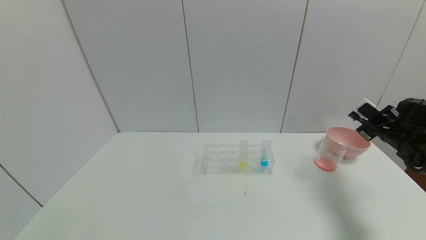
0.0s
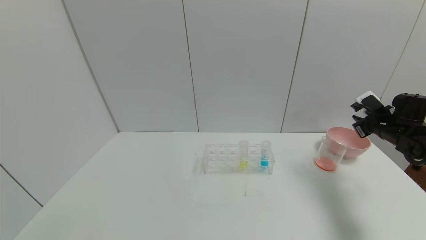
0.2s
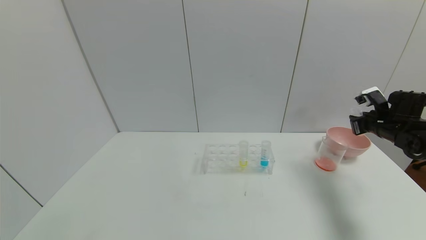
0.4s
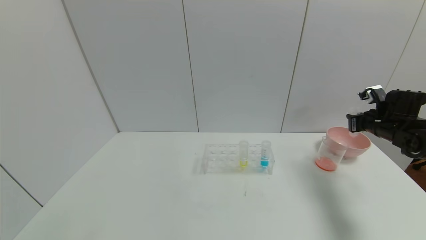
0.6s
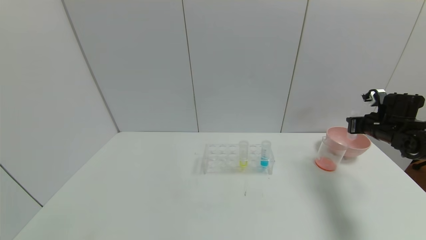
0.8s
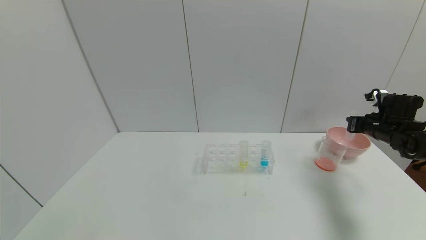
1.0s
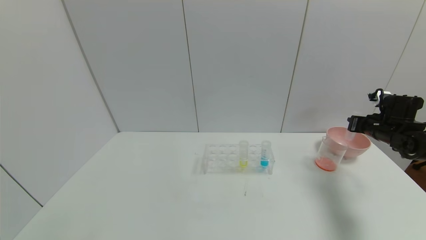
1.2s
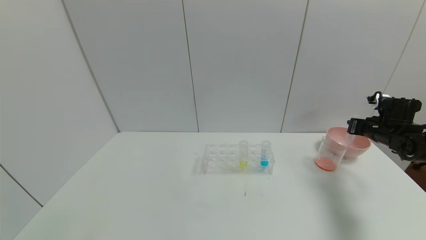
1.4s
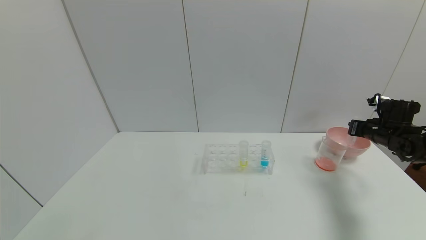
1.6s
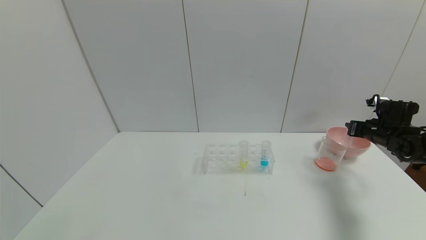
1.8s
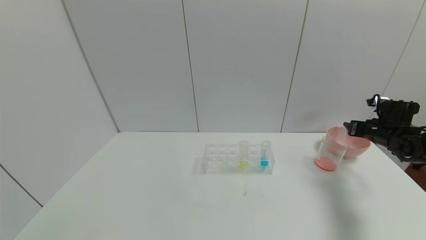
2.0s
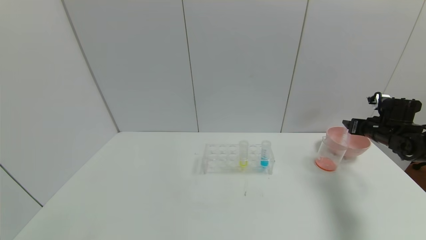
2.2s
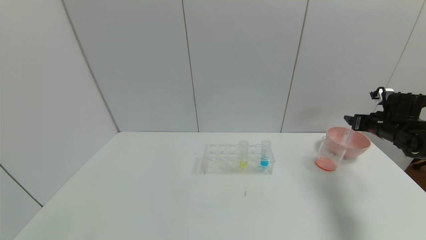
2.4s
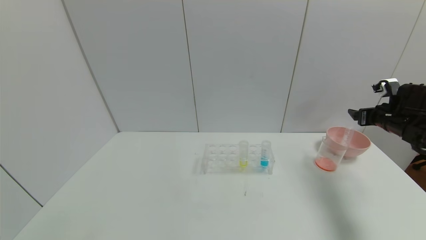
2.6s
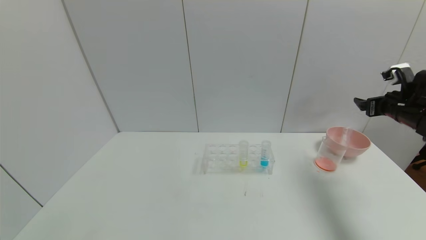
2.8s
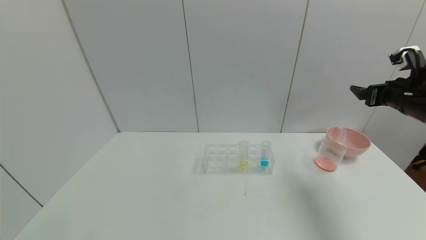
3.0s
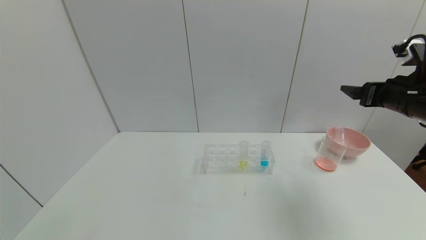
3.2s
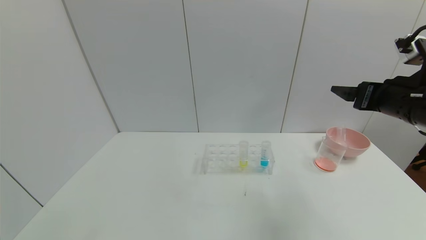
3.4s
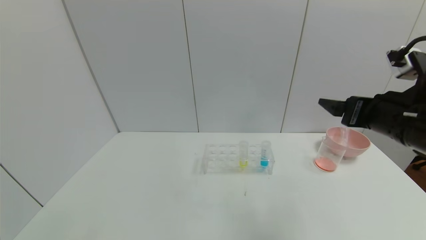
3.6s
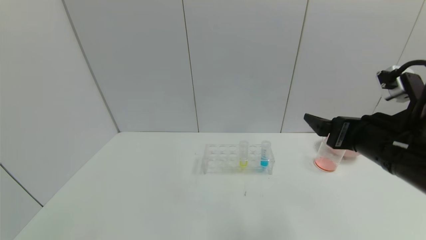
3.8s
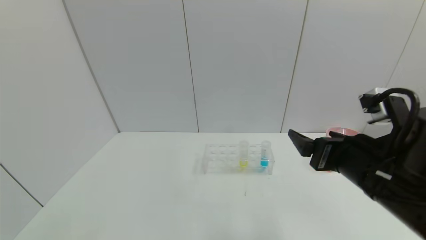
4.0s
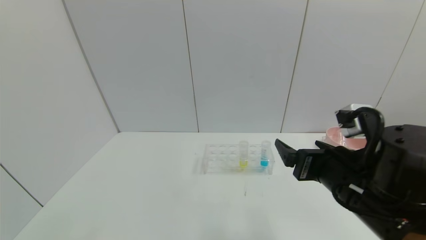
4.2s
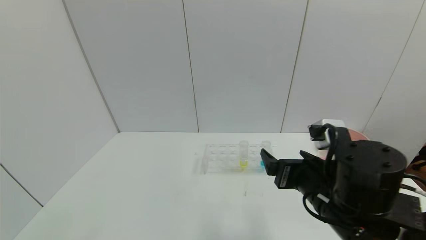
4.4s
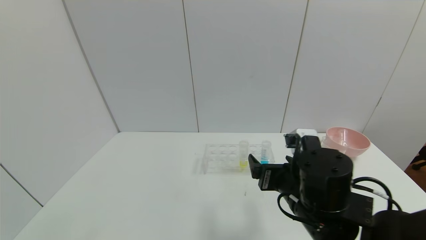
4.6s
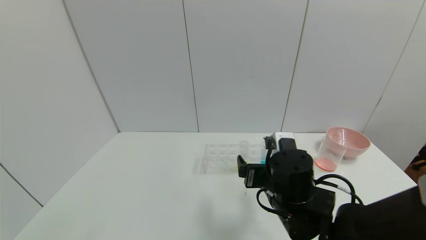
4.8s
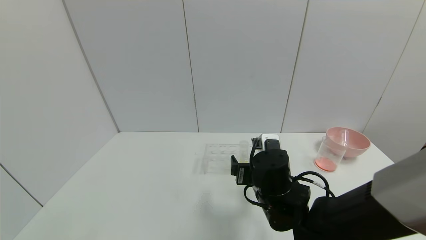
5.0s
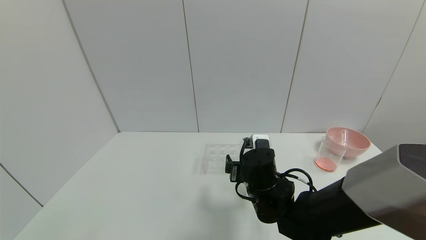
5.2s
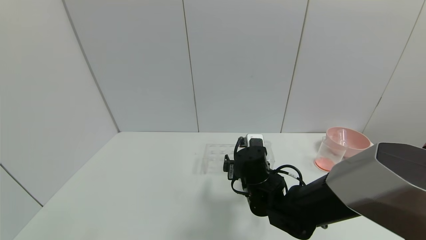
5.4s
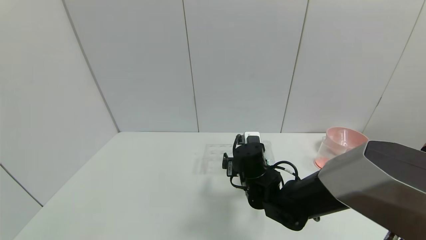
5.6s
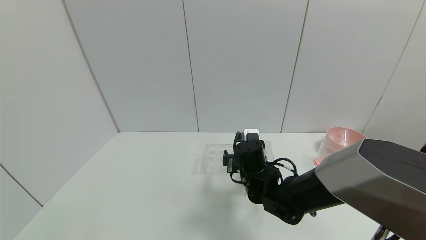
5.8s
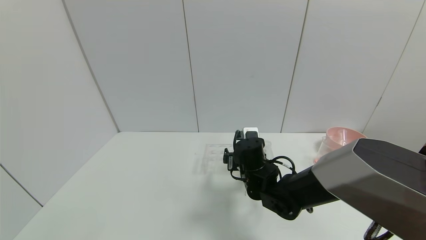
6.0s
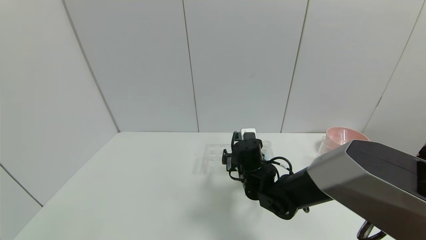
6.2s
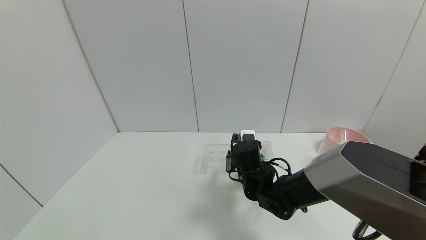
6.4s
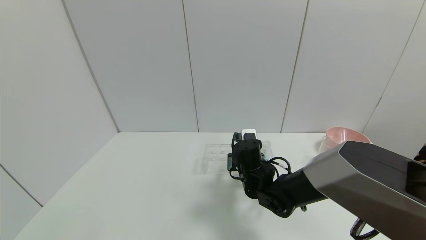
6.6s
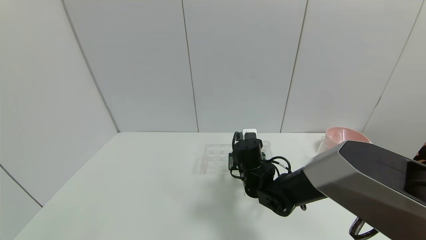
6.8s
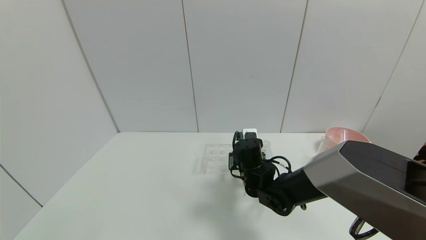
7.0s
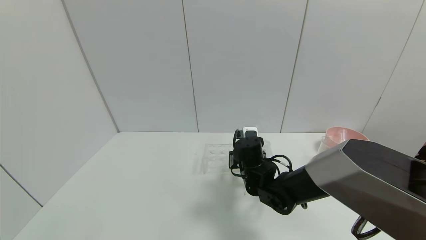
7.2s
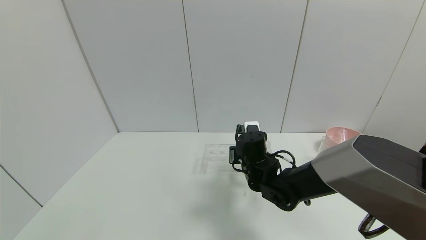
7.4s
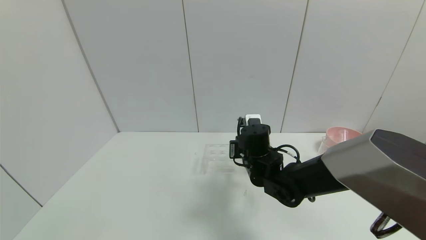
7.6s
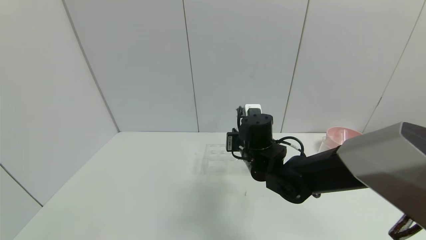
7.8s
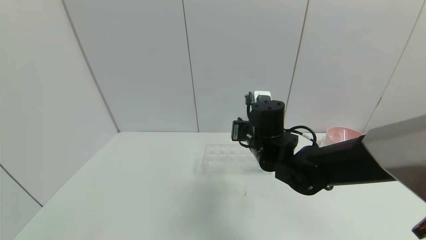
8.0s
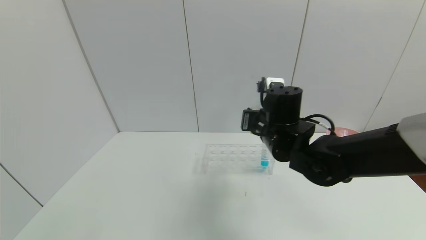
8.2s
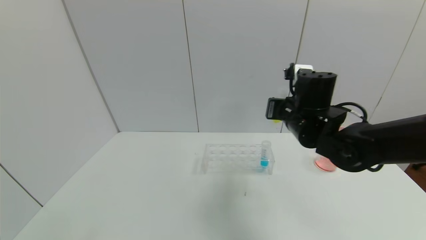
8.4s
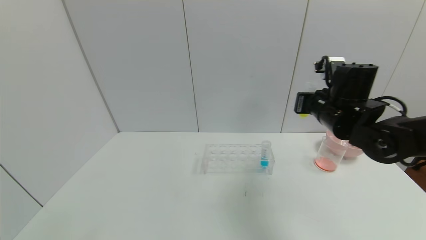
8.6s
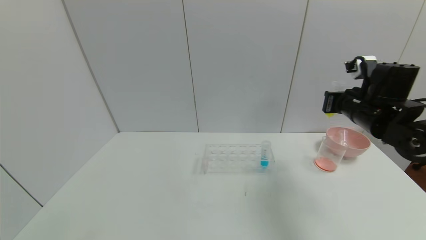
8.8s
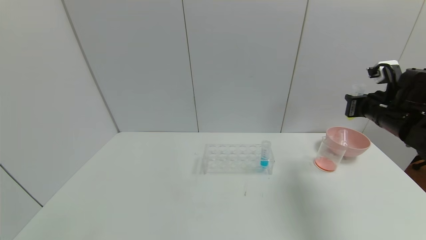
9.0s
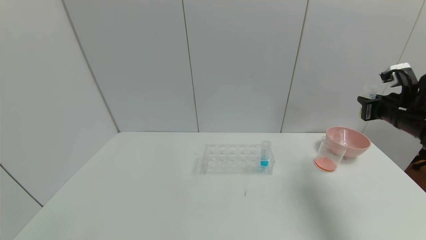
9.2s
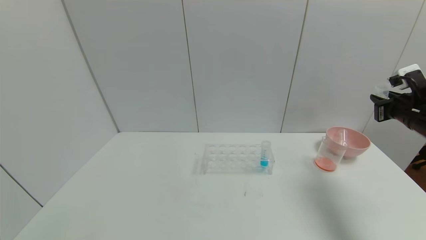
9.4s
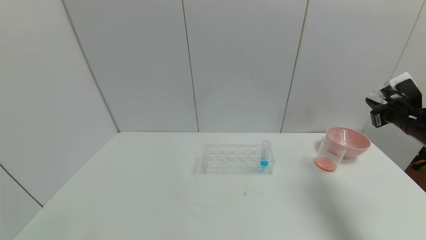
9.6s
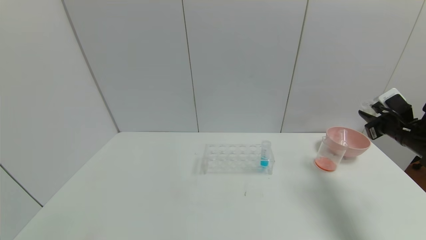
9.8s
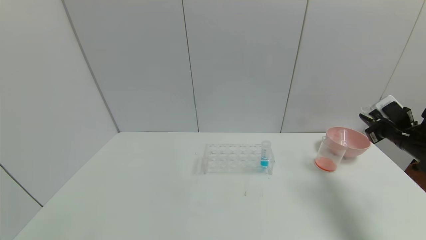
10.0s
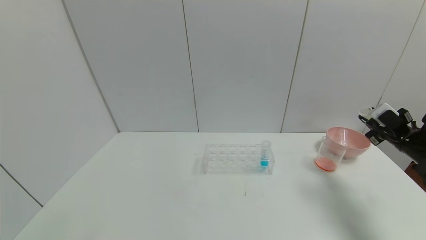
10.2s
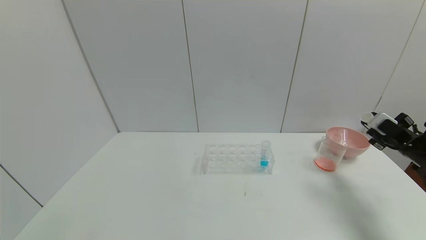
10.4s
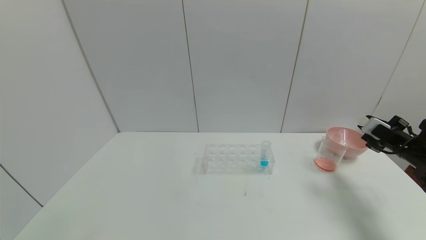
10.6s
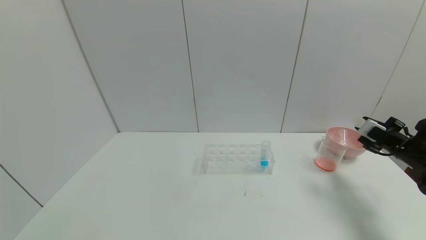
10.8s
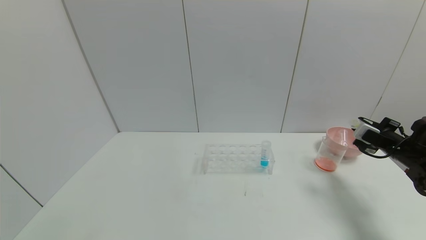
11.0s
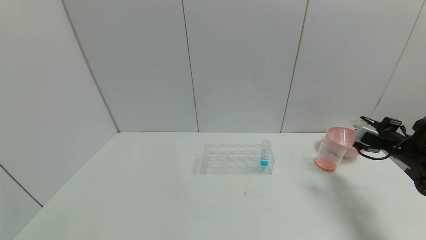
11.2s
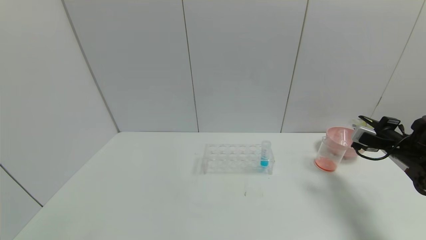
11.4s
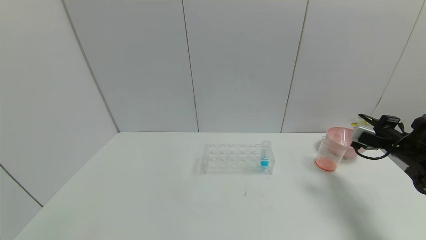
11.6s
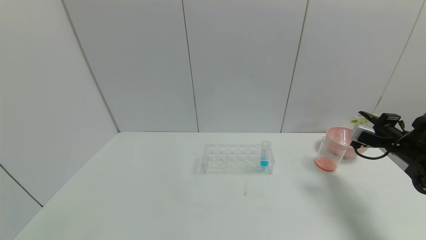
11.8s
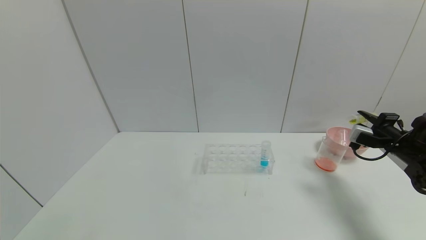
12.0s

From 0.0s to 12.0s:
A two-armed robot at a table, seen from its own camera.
Task of the whole recording: pick up the test tube with yellow pigment and the test tube with red pigment by grippers and pour them into the beaker.
Step, from 0.0s to 2.0s: Place the test tube into the bowl with the right gripper.
Step, from 2.2s to 6.8s: Grasp the yellow reagent with the right gripper.
From 1.6s to 3.0s: The right gripper travels upward, backward and to the left by about 15 cm, and opens up.
From 3.0s to 4.4s: The right gripper travels to the left and backward by about 25 cm.
From 4.4s to 6.0s: The right gripper shifts roughly 20 cm forward, downward and to the left.
From 6.0s to 7.6s: The right gripper closes its fingers.
From 7.6s to 9.0s: The right gripper goes some 30 cm to the right.
From 9.0s to 10.4s: The right gripper shifts about 15 cm to the right and downward.

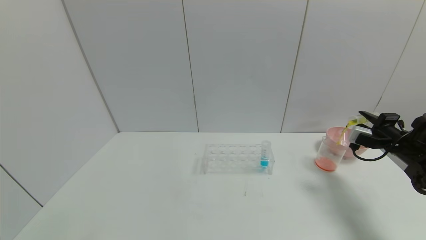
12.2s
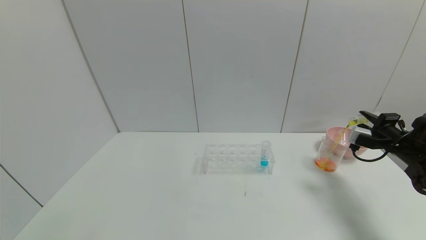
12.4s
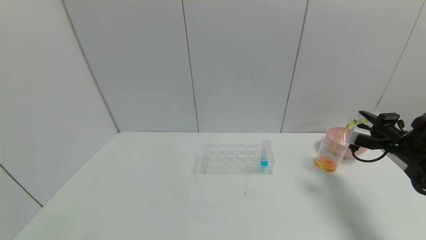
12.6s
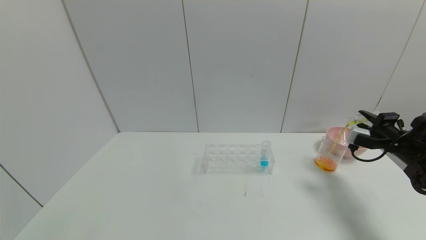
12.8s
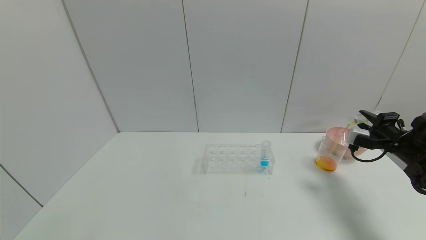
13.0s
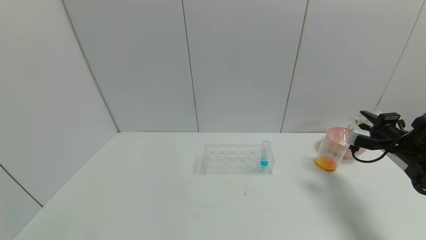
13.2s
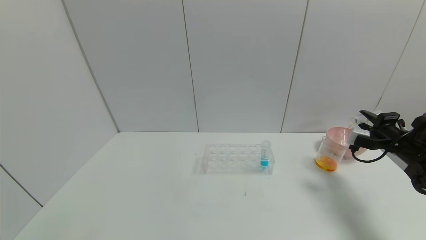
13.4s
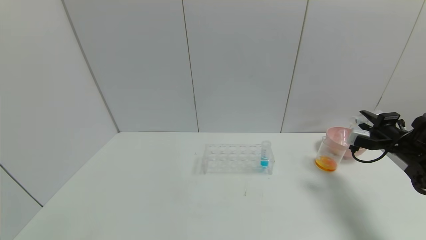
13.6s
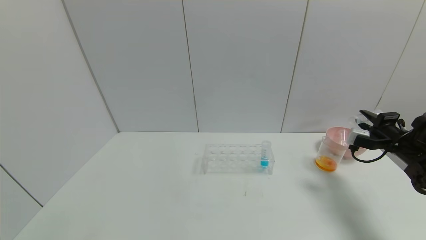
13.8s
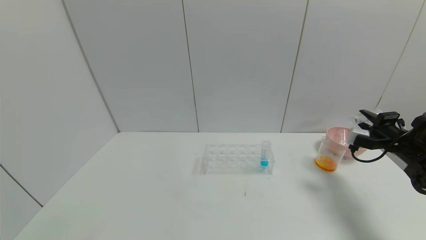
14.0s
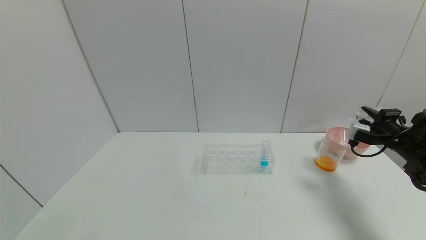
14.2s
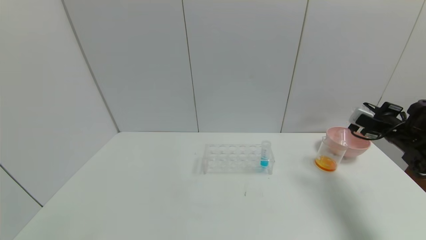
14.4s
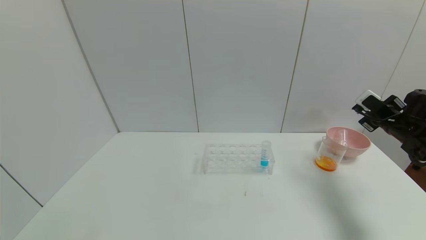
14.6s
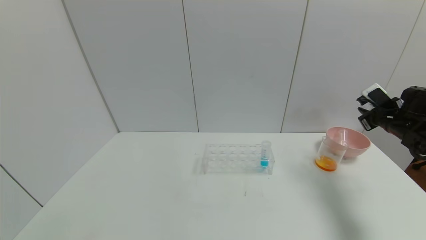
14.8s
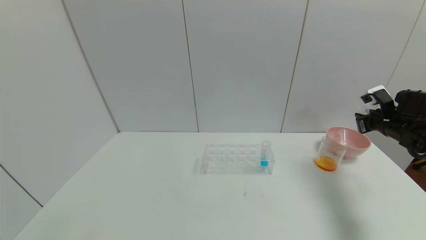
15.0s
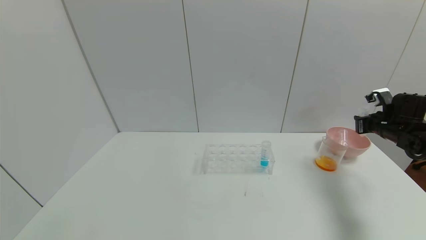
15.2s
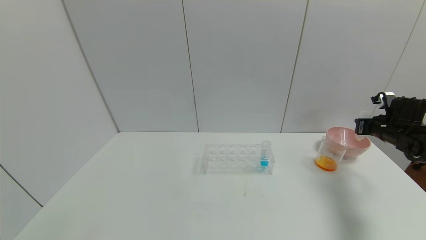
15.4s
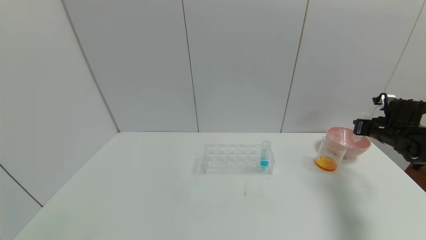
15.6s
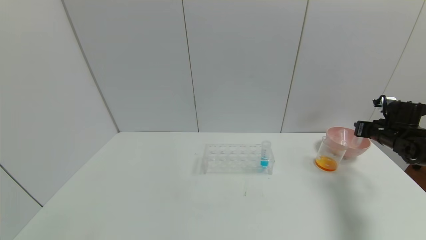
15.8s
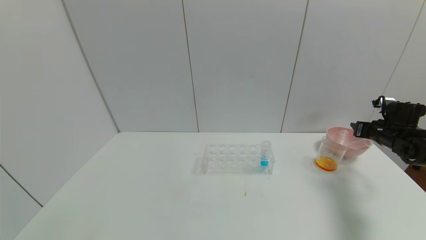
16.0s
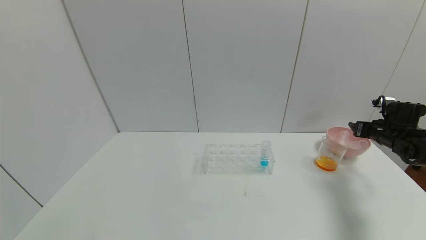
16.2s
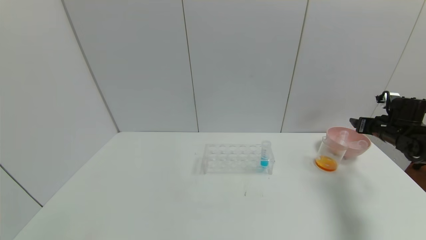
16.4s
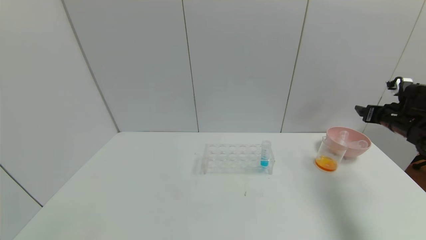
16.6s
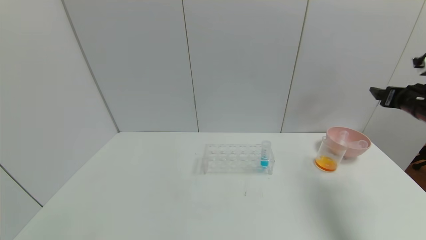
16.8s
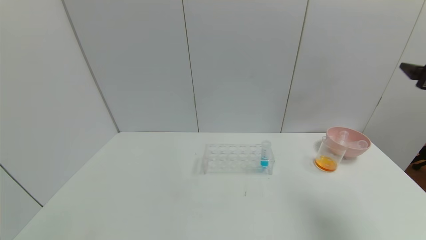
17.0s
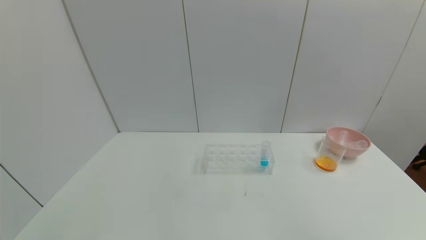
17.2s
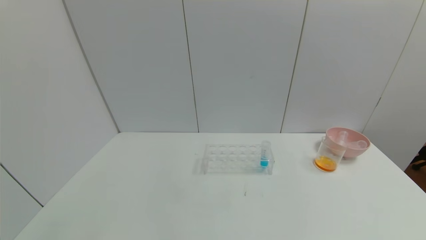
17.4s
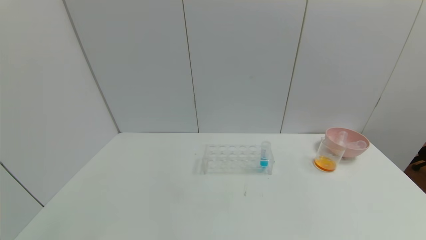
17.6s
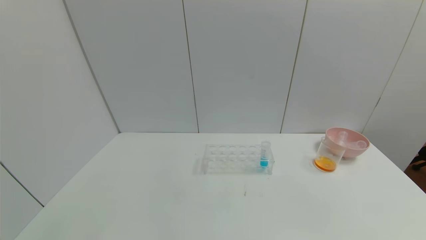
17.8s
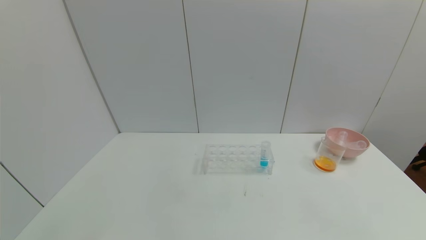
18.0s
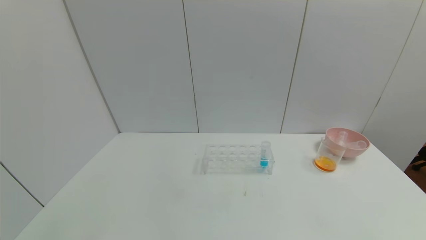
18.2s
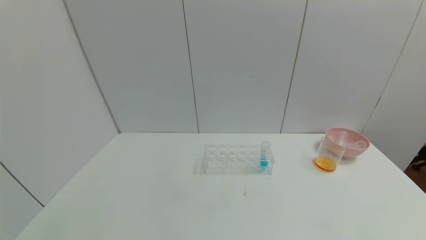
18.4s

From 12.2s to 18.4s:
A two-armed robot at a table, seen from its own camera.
Task of the whole recording: pick up the test tube with yellow pigment and the test tube with red pigment by grippers and pour them into the beaker.
Step, from 12.2s to 14.4s: Pour the yellow reagent into the graduated cylinder with the right gripper.
Step, from 14.6s to 16.0s: Place the test tube into the bowl with the right gripper.
From 15.4s to 16.8s: The right gripper travels upward and backward by roughly 15 cm, and opens.
From 16.8s to 18.4s: The right gripper heads backward and downward, covering some 40 cm.
